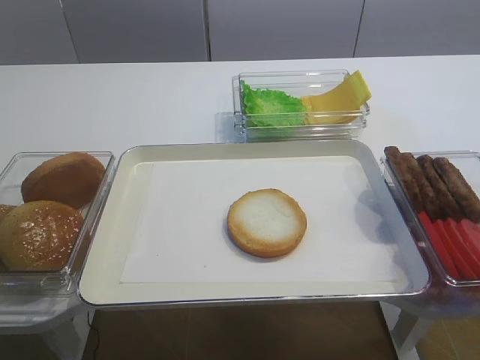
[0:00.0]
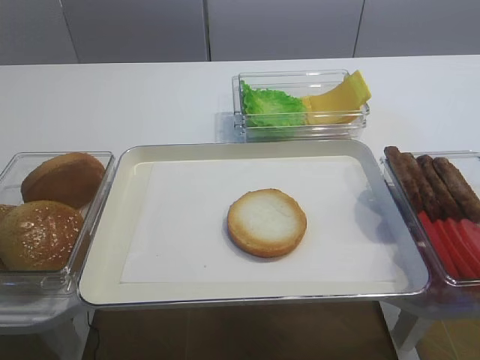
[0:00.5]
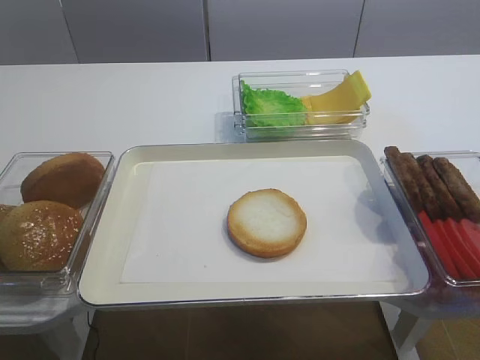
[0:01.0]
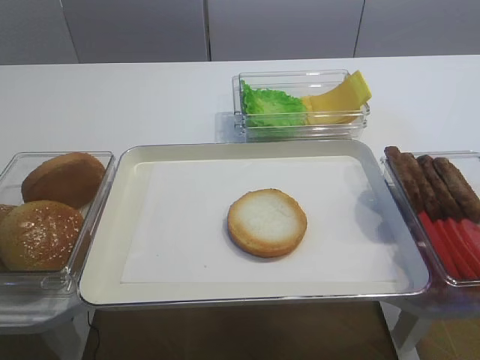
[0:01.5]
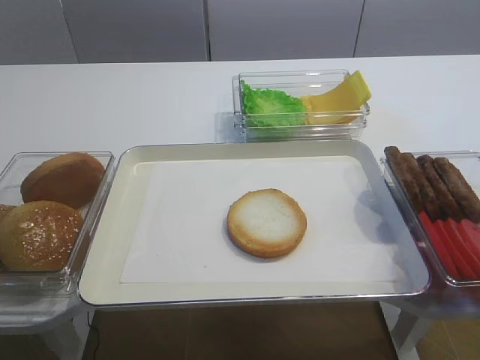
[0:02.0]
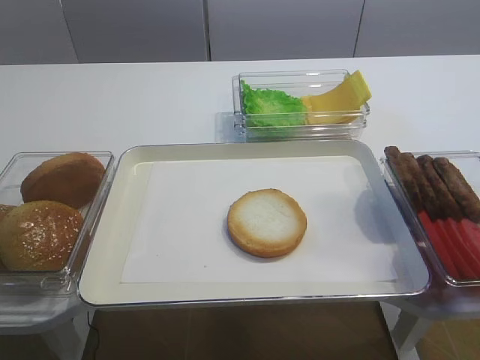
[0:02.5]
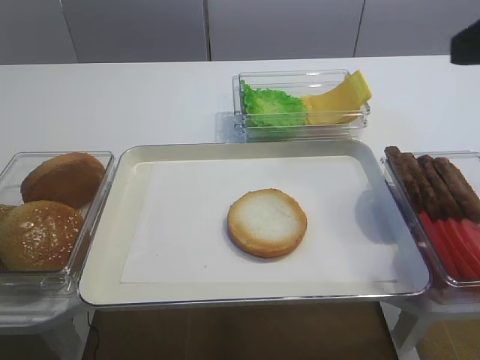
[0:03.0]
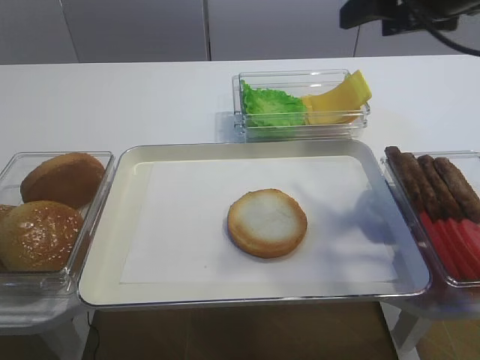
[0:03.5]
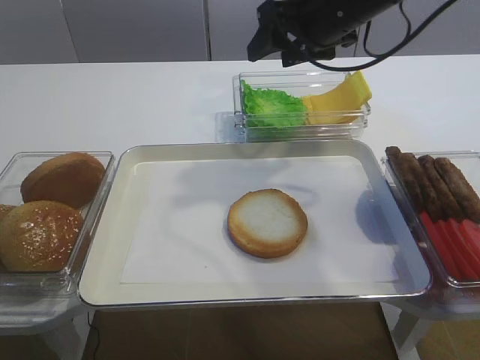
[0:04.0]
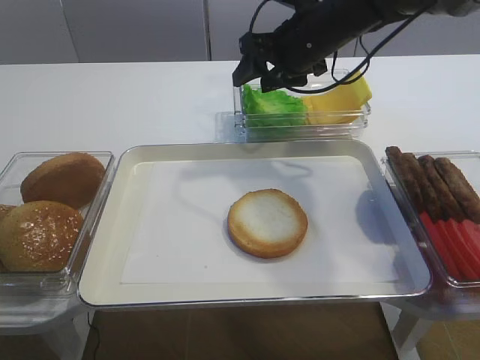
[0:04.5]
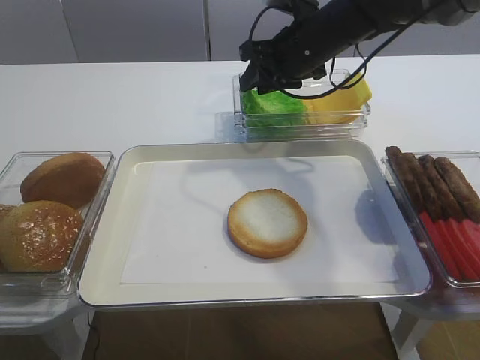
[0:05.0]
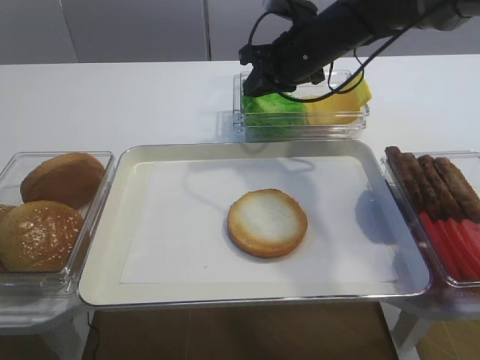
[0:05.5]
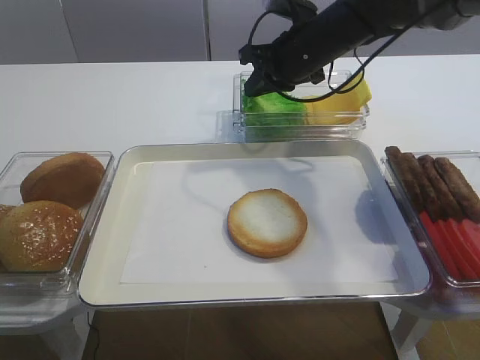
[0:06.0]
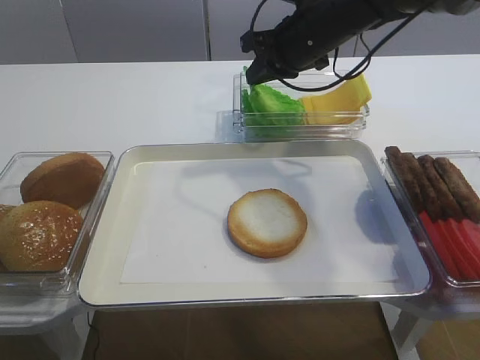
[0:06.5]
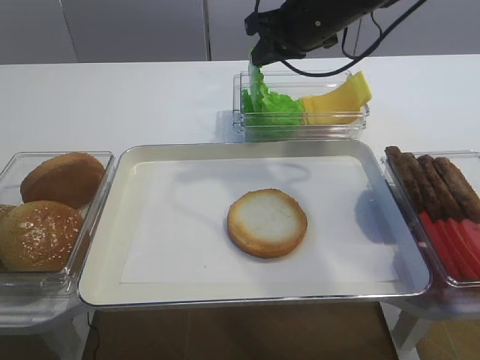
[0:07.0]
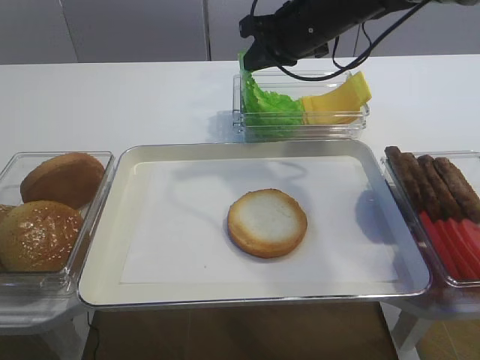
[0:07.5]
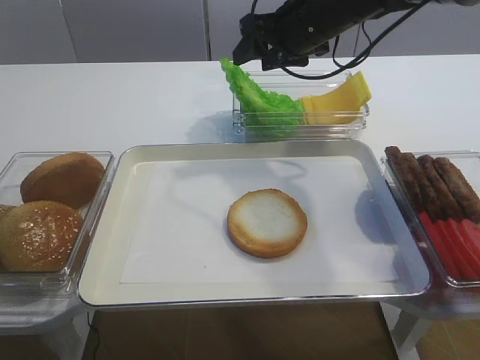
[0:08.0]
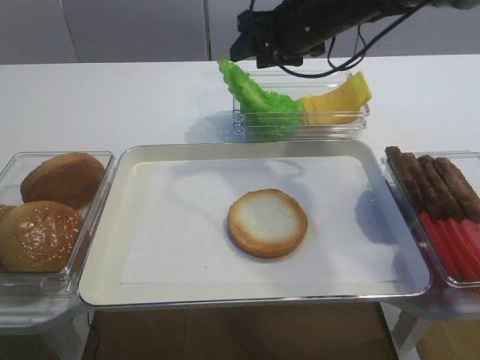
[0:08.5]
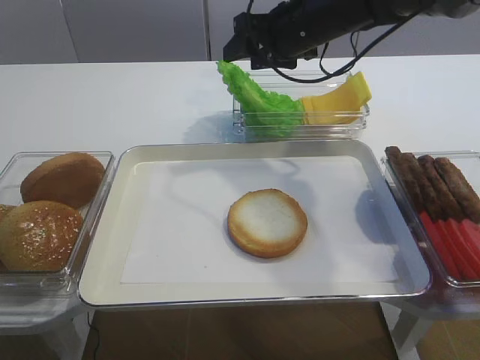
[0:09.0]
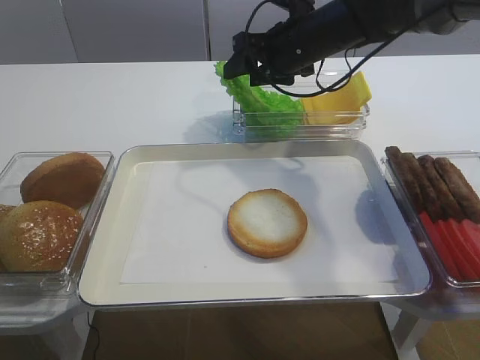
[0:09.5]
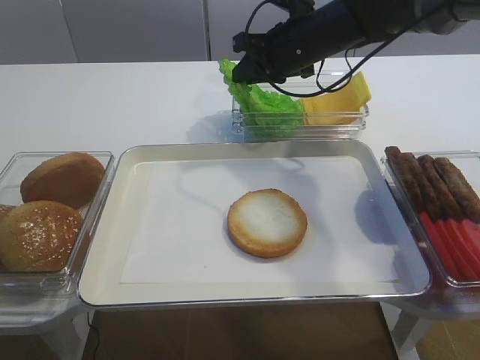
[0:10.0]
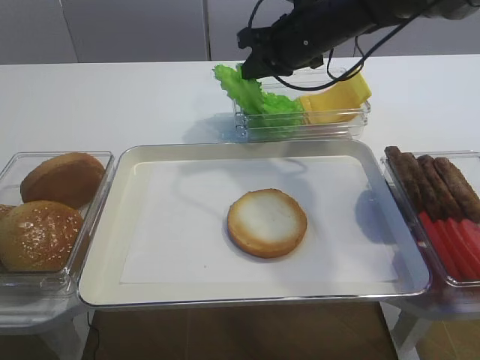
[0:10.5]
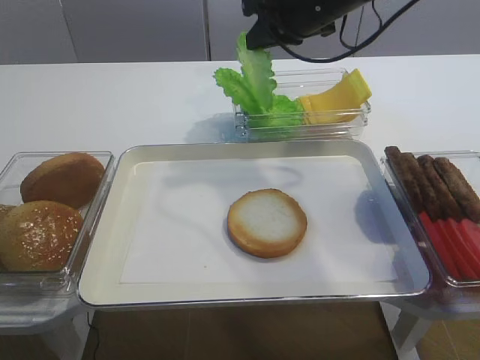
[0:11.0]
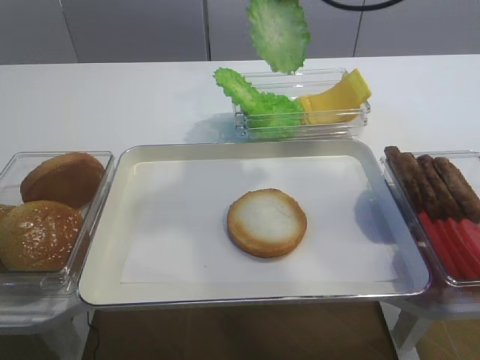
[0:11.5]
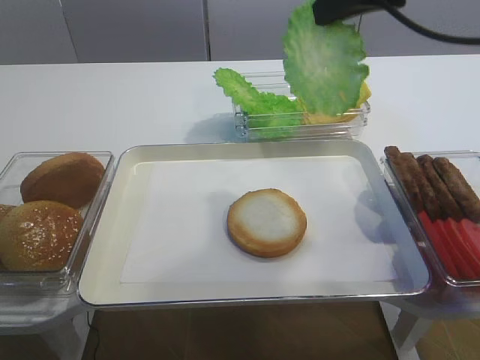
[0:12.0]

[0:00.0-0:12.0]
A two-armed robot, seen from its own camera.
Step, 0:00.0 to 0:10.5: Pick up the lettuce leaf with the right gripper.
0:02.0 to 0:04.0: The right gripper moves forward and to the left, roughly 40 cm.
0:04.0 to 0:06.0: The right gripper shifts approximately 10 cm downward and forward, and closes.
0:06.0 to 0:08.0: The right gripper opens up.
0:08.0 to 0:10.0: The right gripper closes.
0:10.0 to 0:12.0: The right gripper travels backward, upward and to the right by some 25 cm.

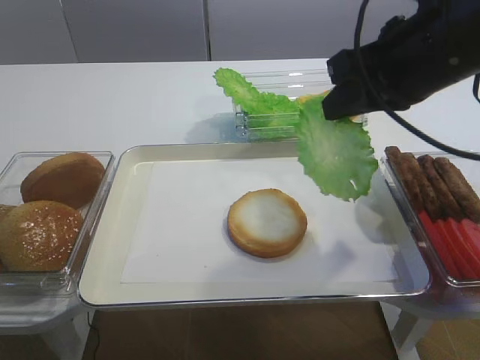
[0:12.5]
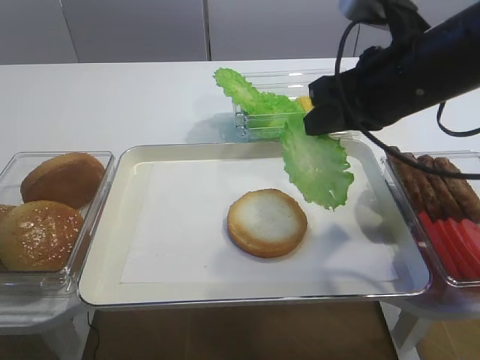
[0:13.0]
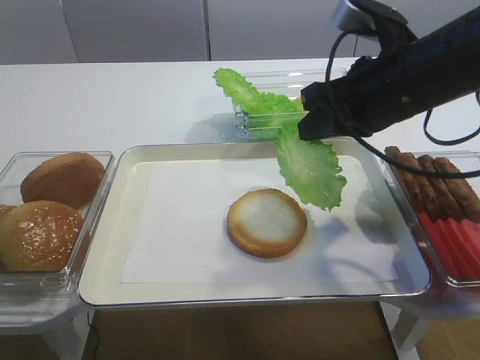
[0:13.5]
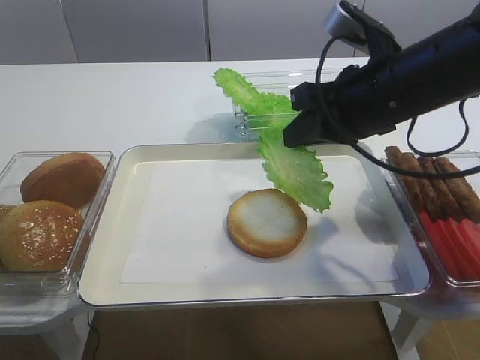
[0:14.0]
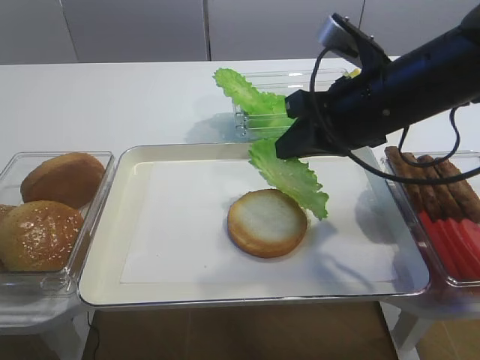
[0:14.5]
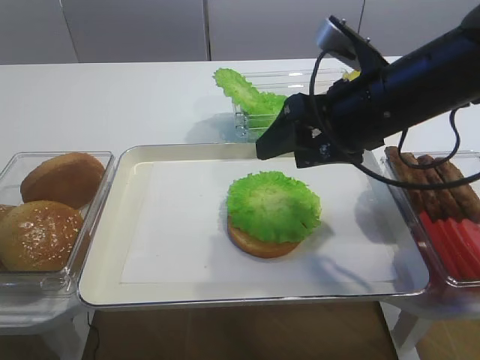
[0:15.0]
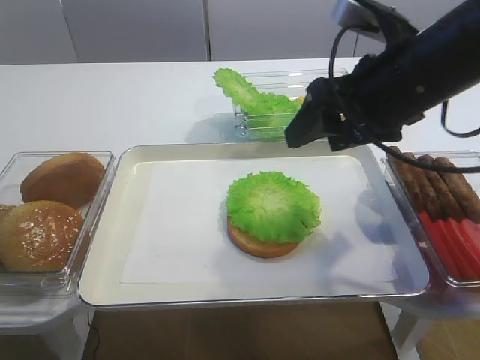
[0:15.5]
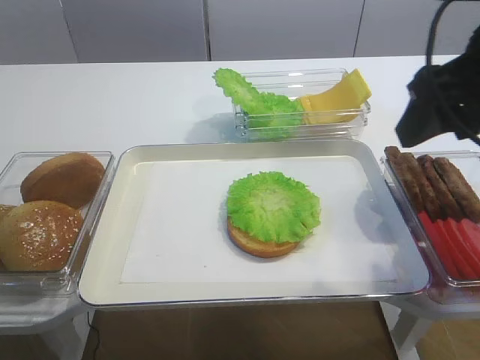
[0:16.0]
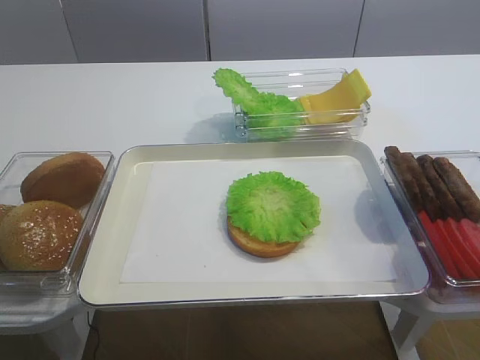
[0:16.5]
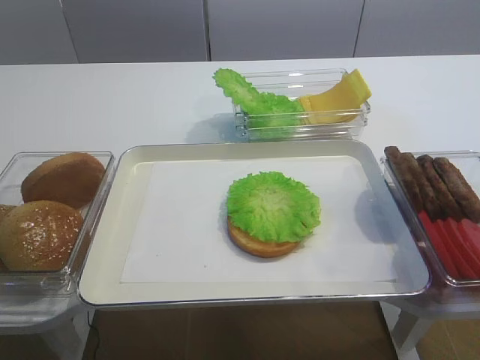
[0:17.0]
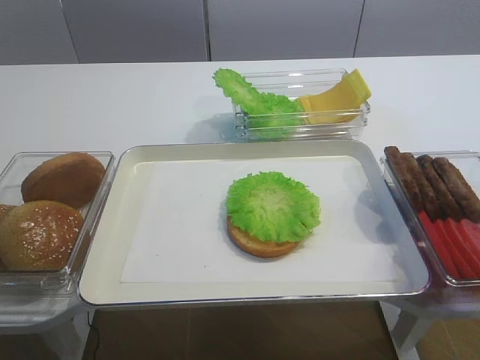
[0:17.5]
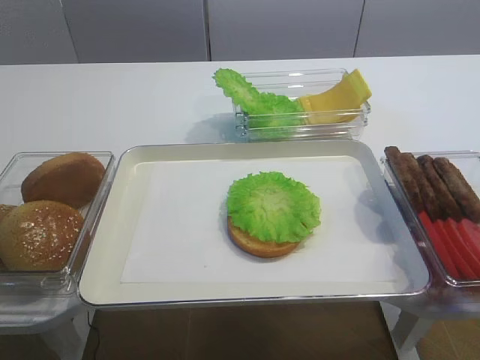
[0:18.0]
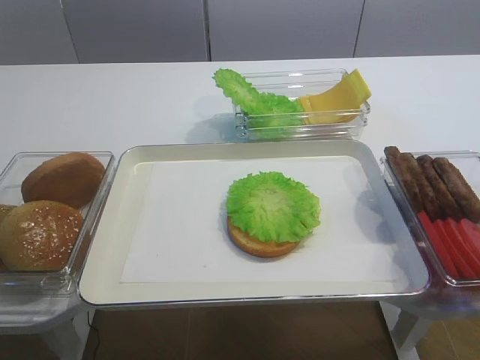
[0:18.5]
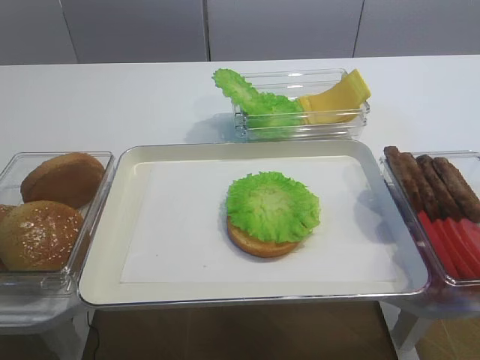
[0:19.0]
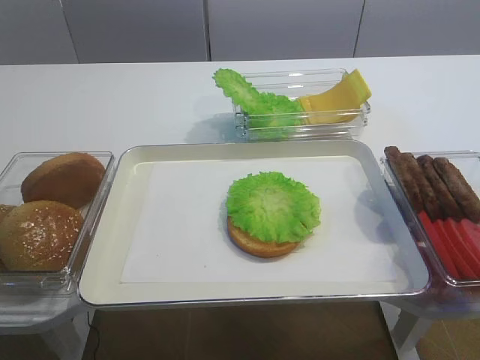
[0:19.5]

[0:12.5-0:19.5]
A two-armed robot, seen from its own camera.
Step, 0:12.5 to 0:15.5: Place the lettuce leaf on the bread slice with the right gripper.
0:12.5 to 0:14.5: The right gripper moves downward, some 5 cm.
0:14.5 to 0:16.0: The right gripper moves upward, backward and to the right, about 10 cm, and opens.
0:16.0 to 0:17.5: The right gripper shifts some 25 cm backward.

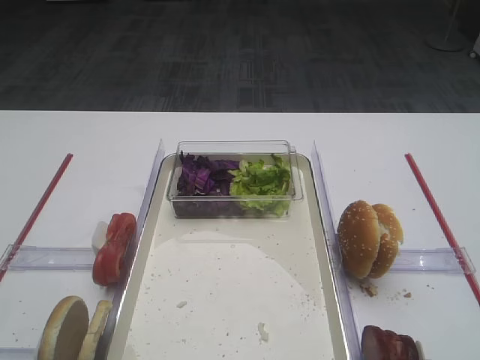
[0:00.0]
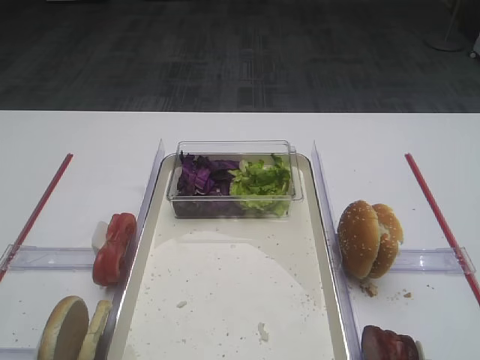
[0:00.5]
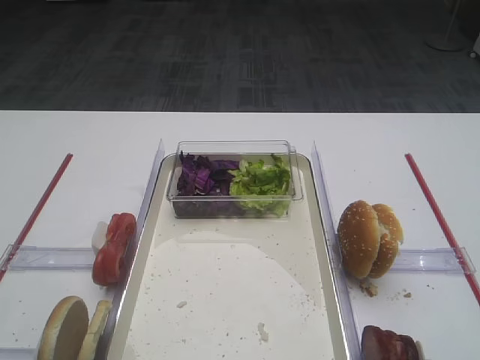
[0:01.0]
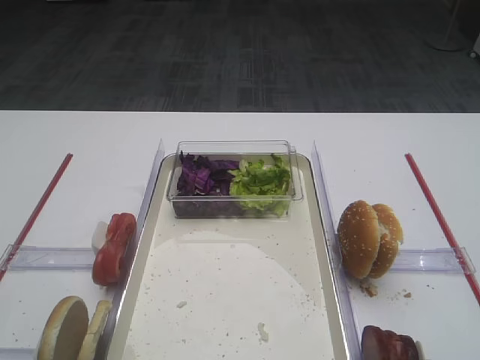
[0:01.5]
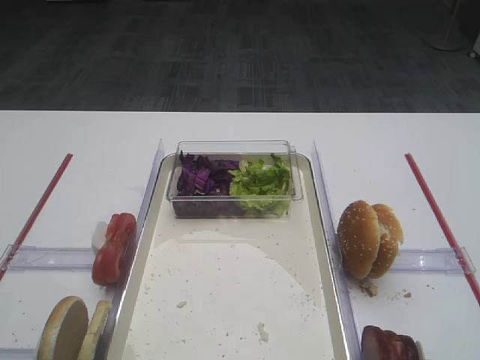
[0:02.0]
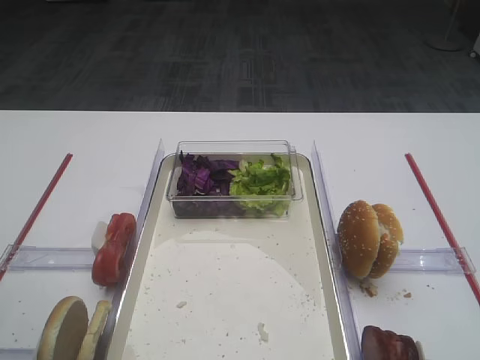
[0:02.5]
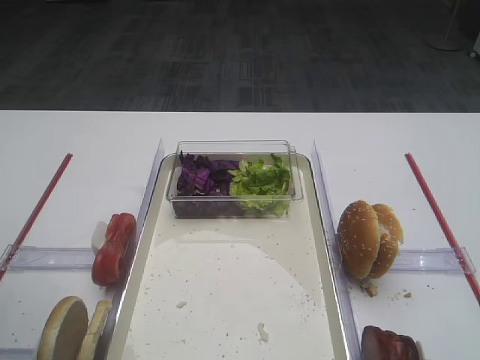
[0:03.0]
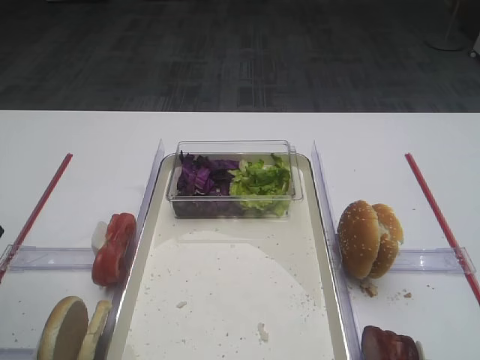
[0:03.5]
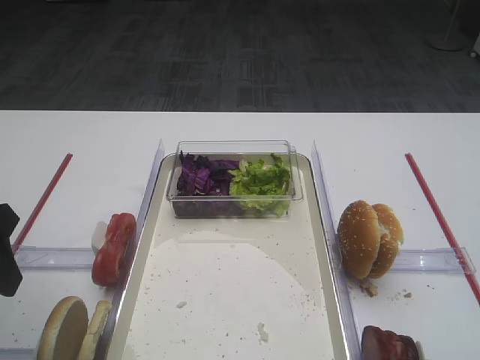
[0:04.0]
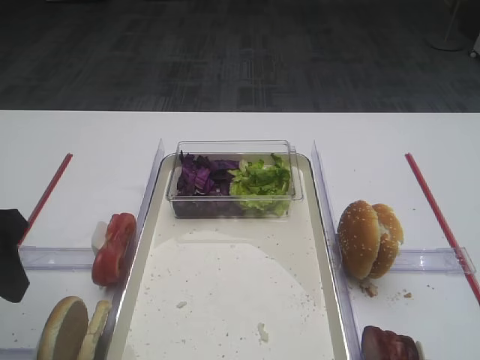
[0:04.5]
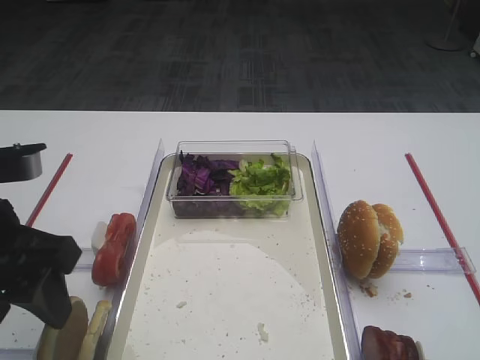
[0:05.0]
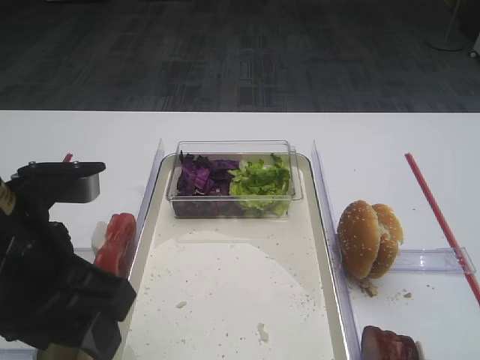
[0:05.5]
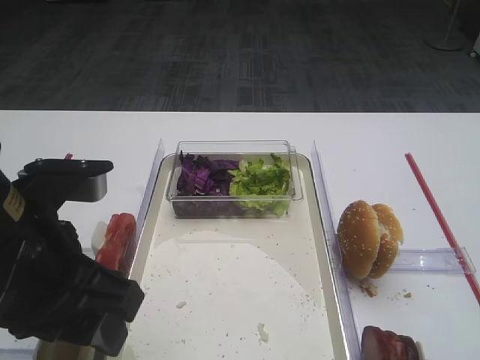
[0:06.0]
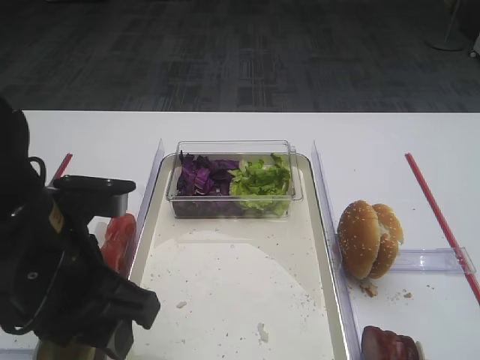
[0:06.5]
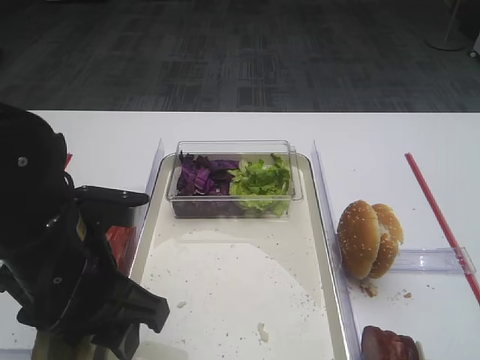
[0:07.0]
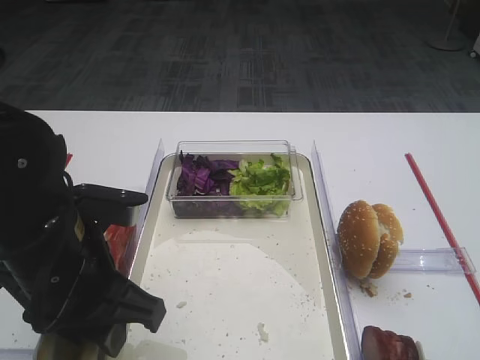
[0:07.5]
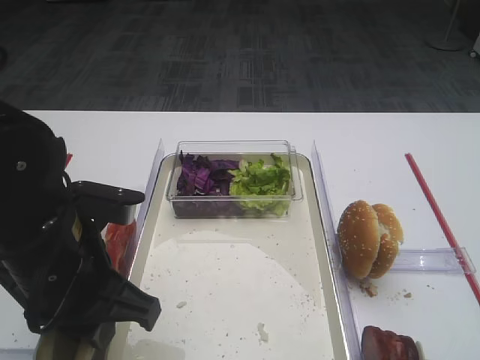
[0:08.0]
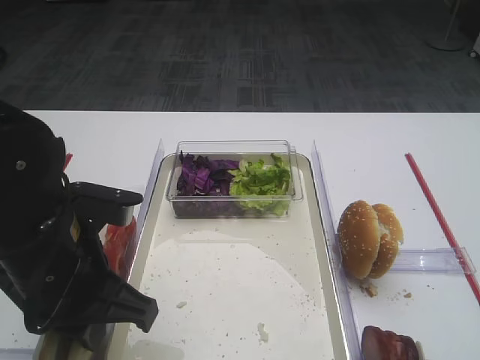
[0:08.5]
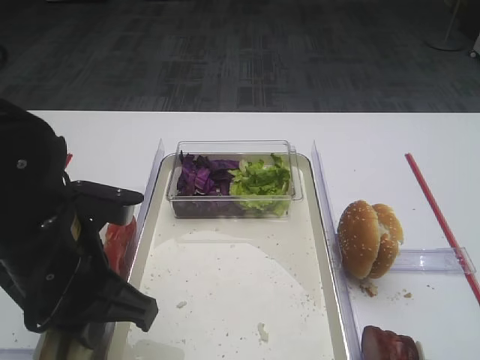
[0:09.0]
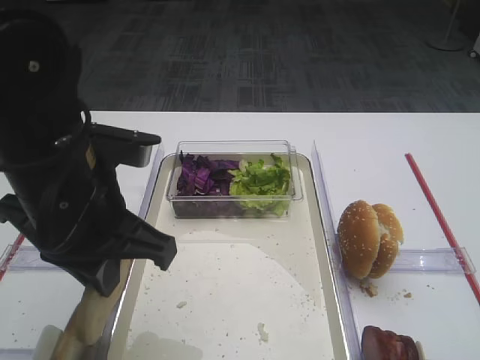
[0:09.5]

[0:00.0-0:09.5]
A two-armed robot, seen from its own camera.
0:02.0 to 0:04.0: The left gripper heads forward, covering approximately 15 cm.
0:04.0 to 0:05.5: The left gripper goes about 10 cm to the right.
0:05.5 to 0:07.5: The left gripper ends up approximately 5 cm from where it was.
0:07.5 to 0:09.5: The left gripper travels upward by some 5 cm, and closes its fingers.
